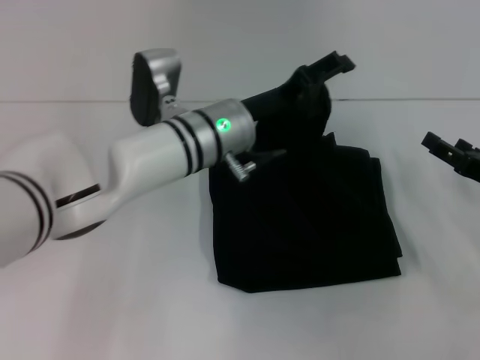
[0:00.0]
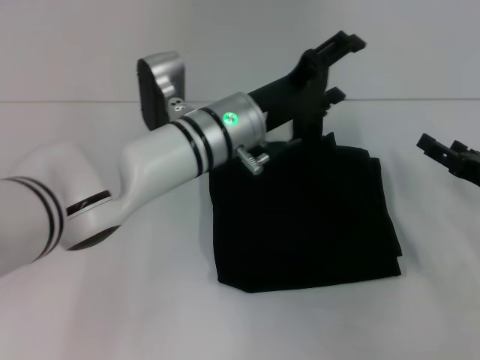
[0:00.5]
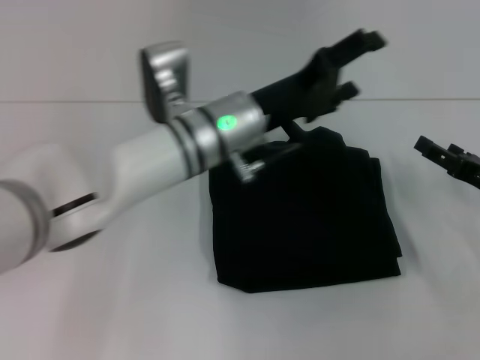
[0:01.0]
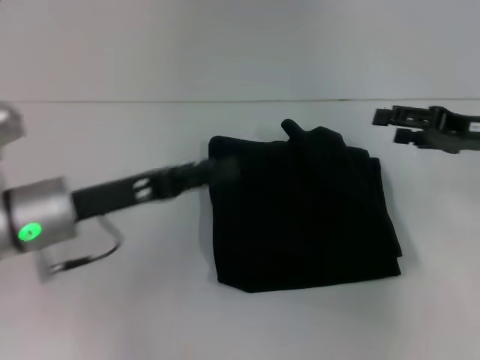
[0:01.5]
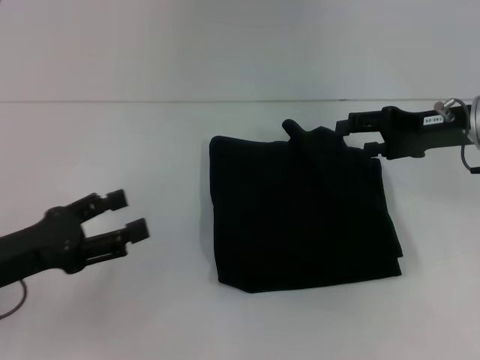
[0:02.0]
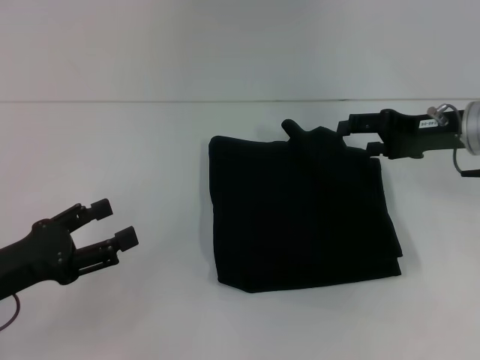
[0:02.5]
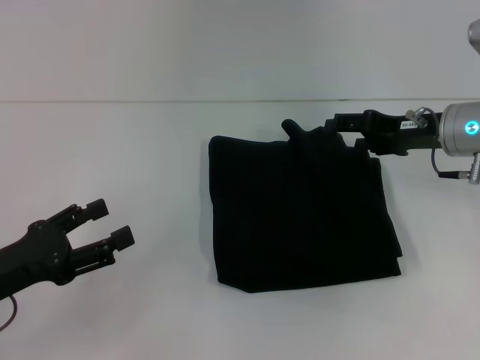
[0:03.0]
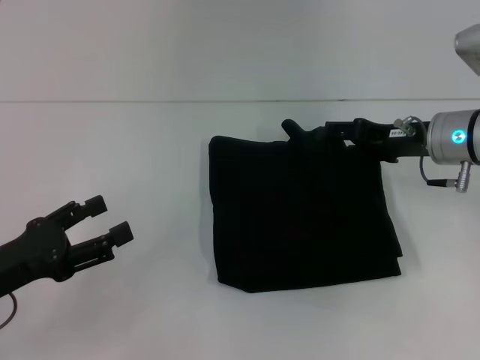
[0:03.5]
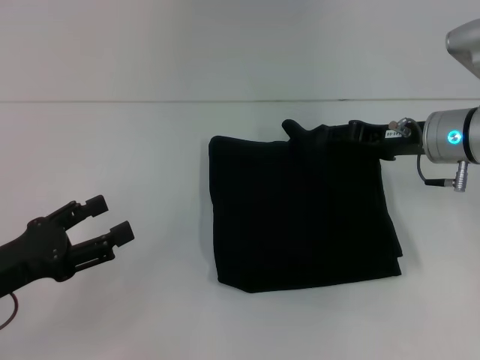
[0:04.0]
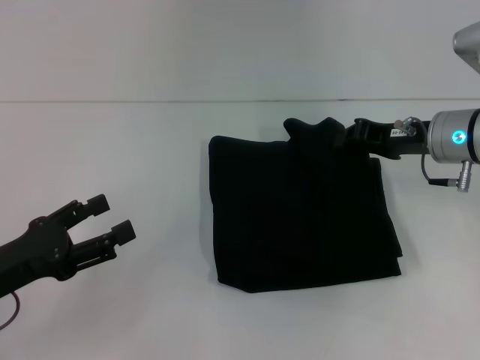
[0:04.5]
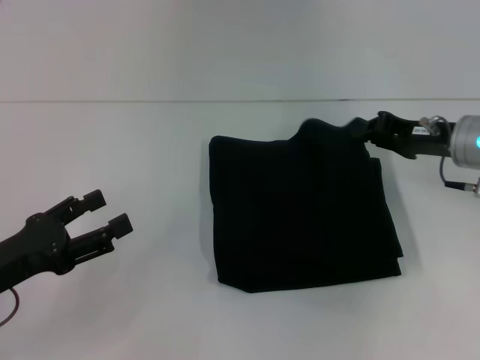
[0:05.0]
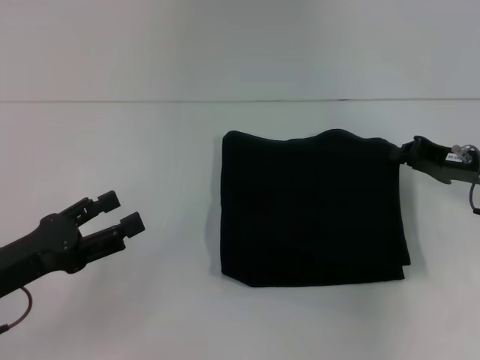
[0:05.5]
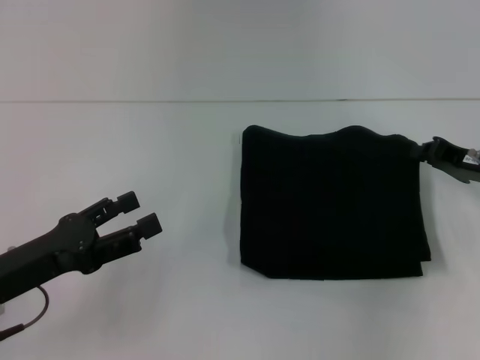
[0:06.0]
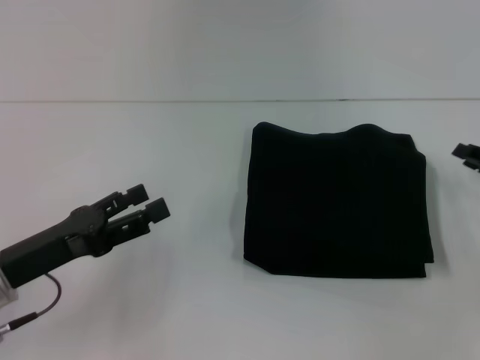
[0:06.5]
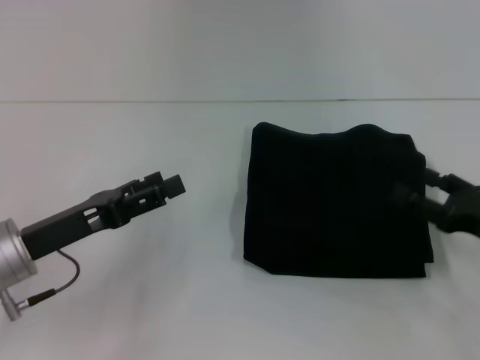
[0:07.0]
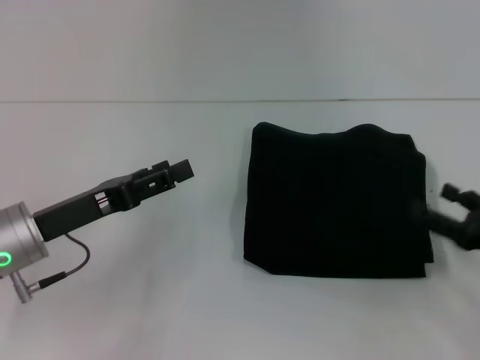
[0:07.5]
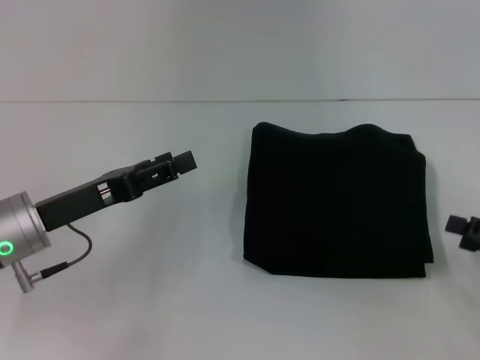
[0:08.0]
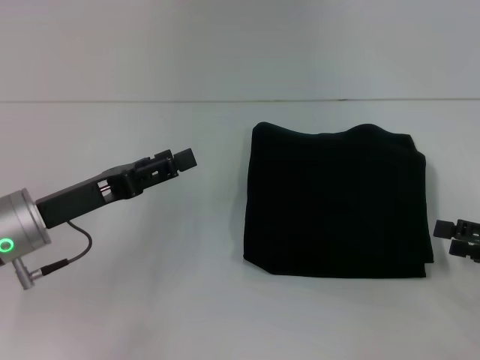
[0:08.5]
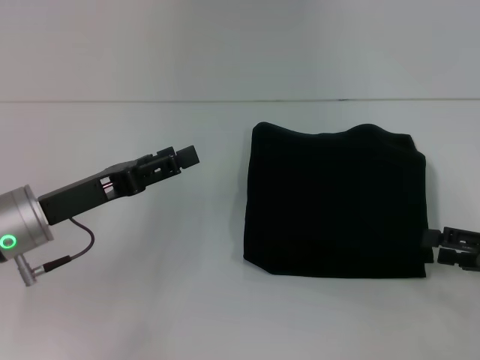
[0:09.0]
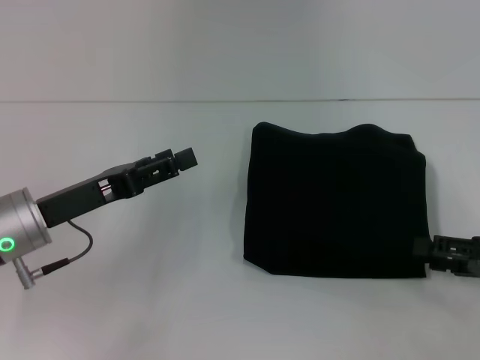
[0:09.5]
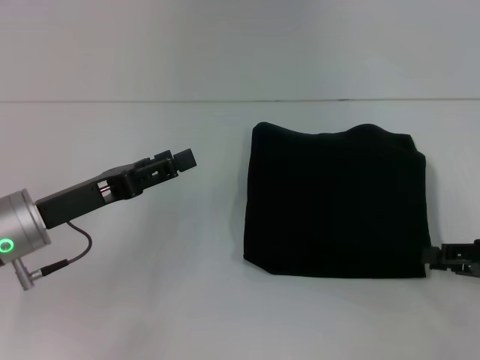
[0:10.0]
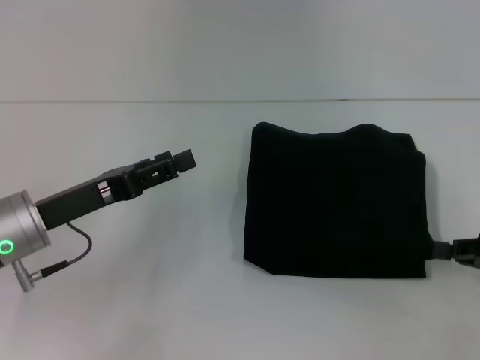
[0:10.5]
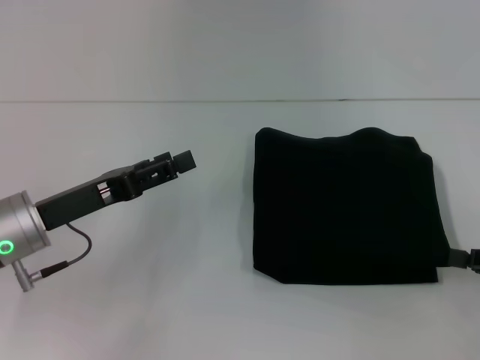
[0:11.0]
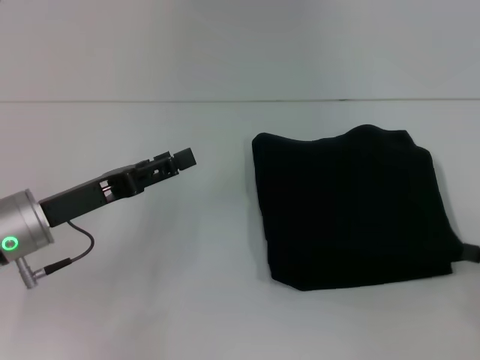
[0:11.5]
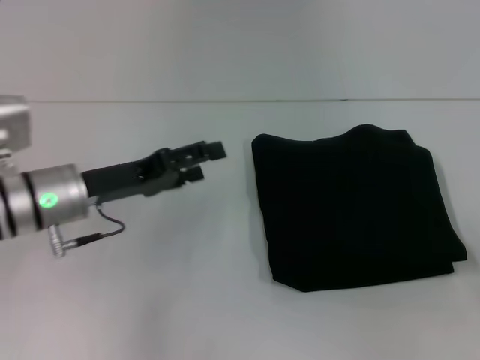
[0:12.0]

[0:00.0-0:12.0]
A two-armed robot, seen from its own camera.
0:00.0 to 0:02.0: The right gripper heads upward, forward and to the left, covering roughly 15 cm; the left gripper shifts roughly 30 cm to the left and backward.
0:02.0 to 0:04.0: The grippers stay close to where they were, moving slightly.
0:04.0 to 0:06.0: The right gripper goes about 10 cm to the right, and closes up.
0:06.0 to 0:08.0: The right gripper goes approximately 15 cm backward and to the right, and opens its fingers, while the left gripper shifts approximately 5 cm forward.
0:08.0 to 0:10.0: The right gripper closes up.
0:10.0 to 0:12.0: The right gripper heads to the right, covering some 5 cm.

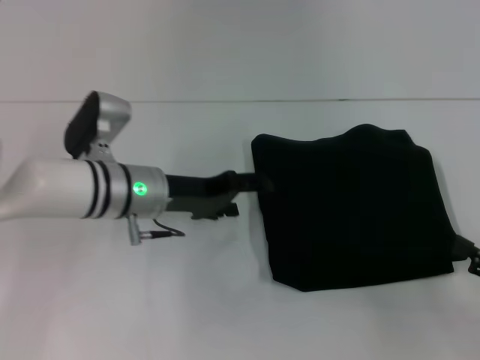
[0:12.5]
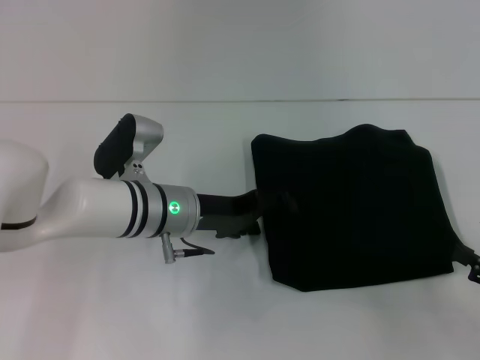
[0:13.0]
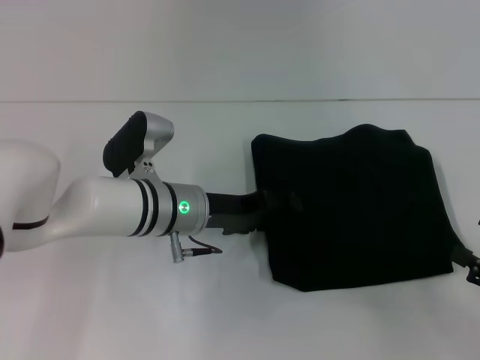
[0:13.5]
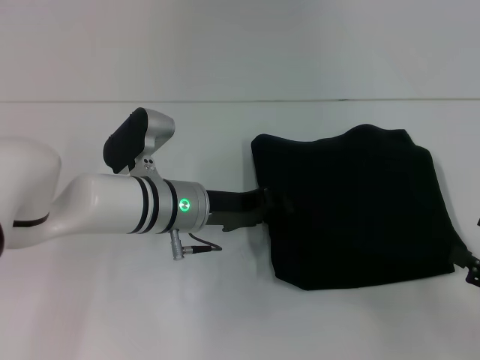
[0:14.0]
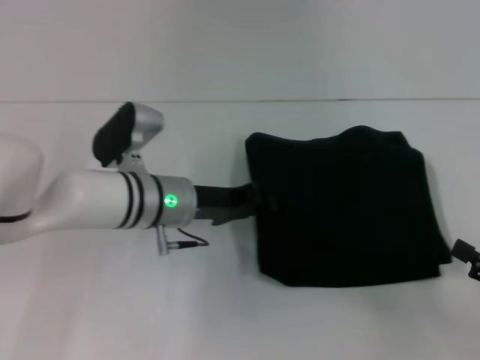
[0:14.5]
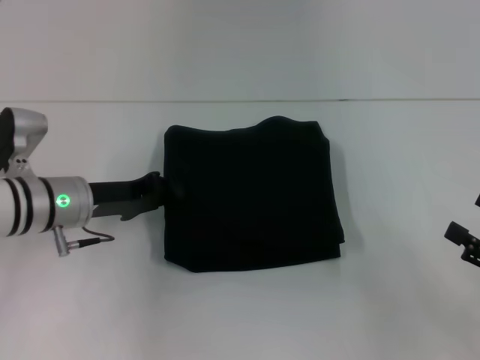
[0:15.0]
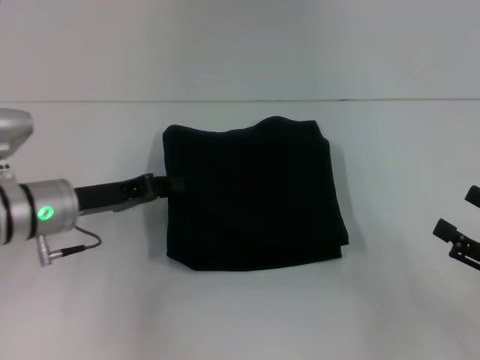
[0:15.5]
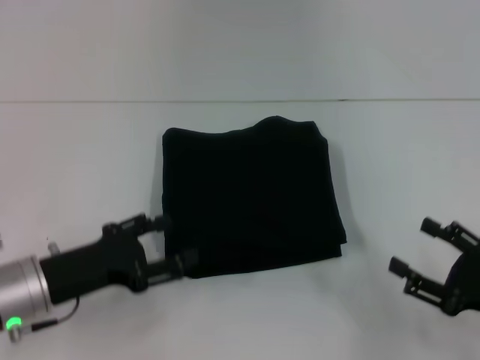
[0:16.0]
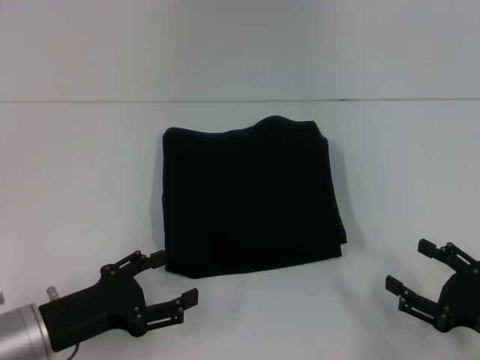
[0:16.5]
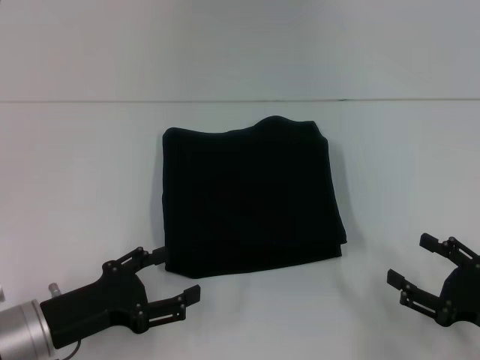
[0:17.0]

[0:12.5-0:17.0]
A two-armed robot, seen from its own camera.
0:12.5 to 0:14.5: The left gripper closes its fingers.
0:14.5 to 0:17.0: The right gripper goes approximately 5 cm to the left; the left gripper heads backward and to the left, covering about 20 cm, and opens its fingers.
